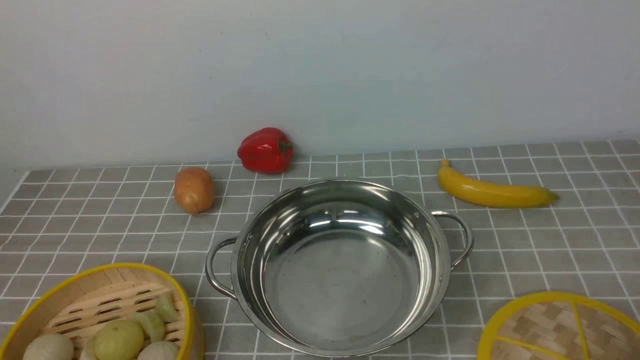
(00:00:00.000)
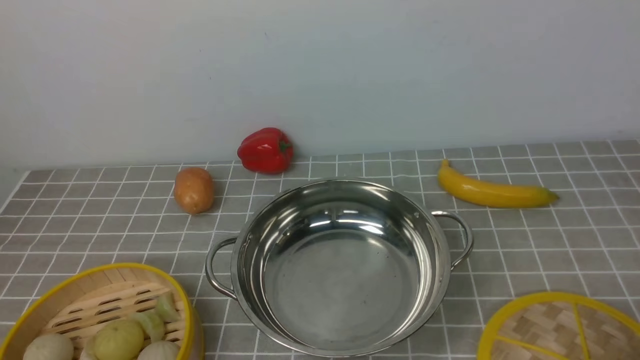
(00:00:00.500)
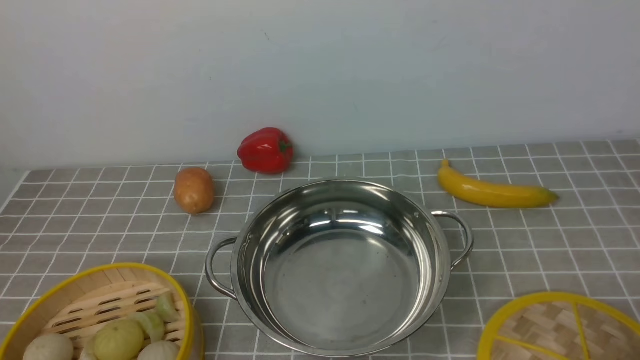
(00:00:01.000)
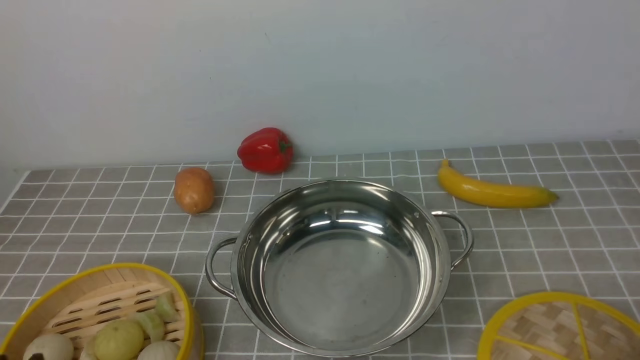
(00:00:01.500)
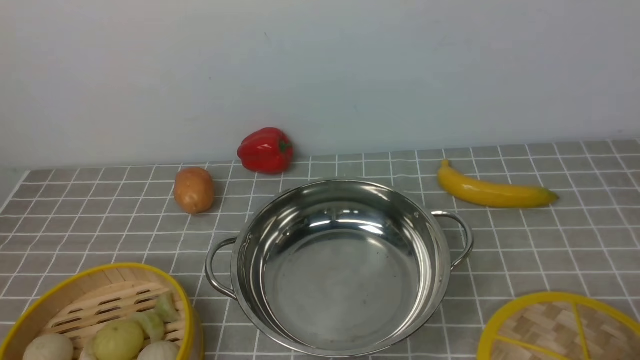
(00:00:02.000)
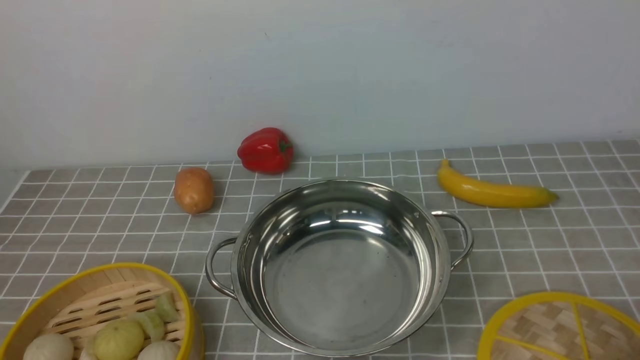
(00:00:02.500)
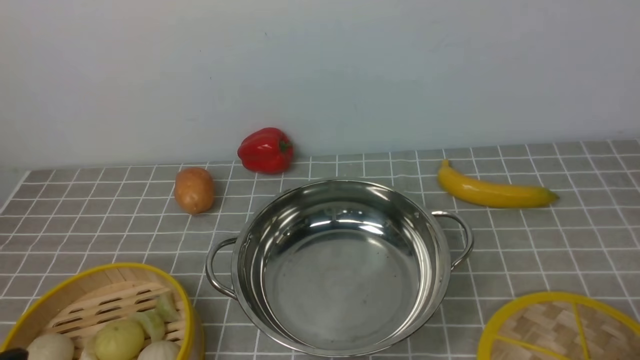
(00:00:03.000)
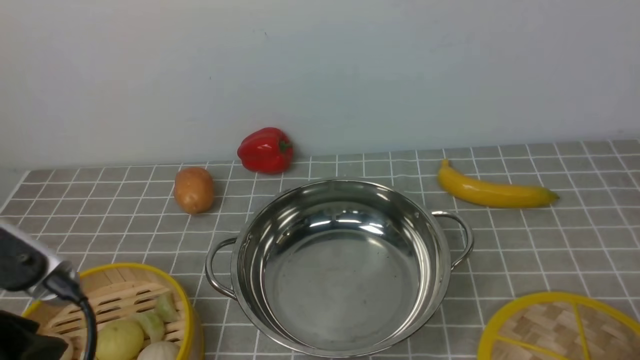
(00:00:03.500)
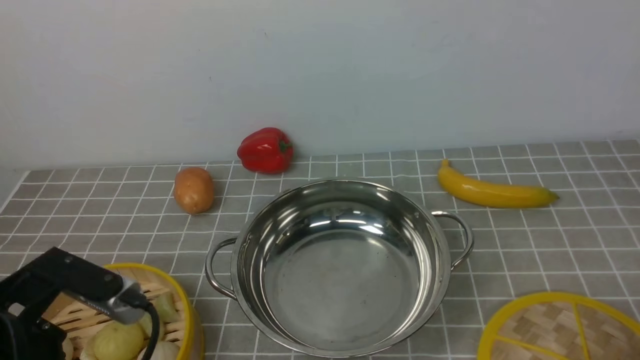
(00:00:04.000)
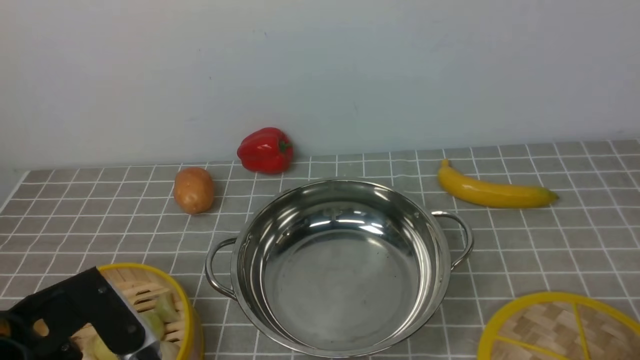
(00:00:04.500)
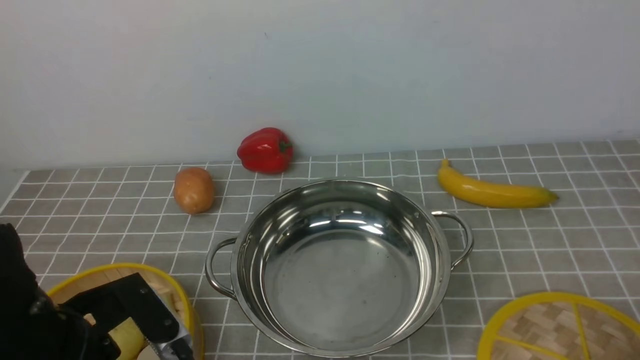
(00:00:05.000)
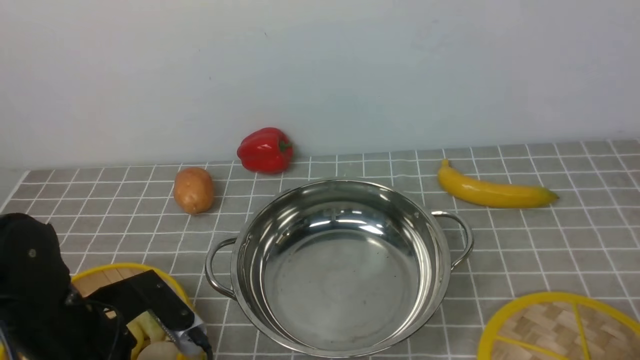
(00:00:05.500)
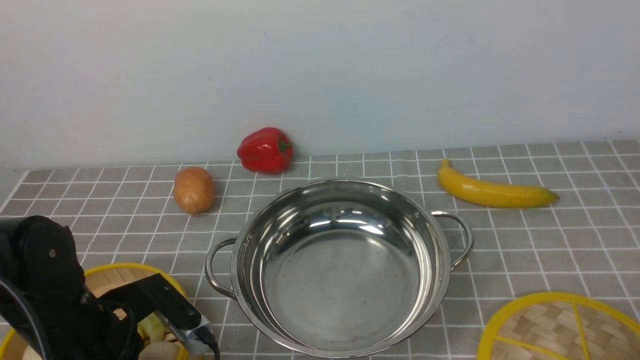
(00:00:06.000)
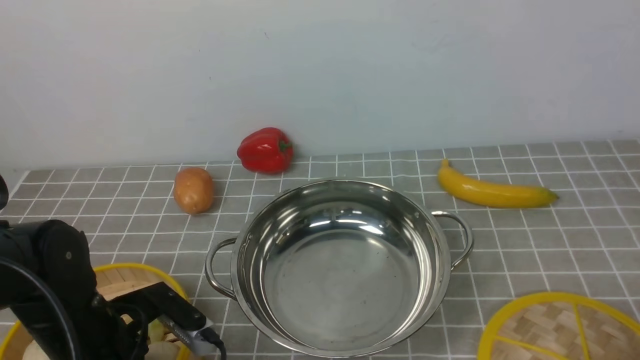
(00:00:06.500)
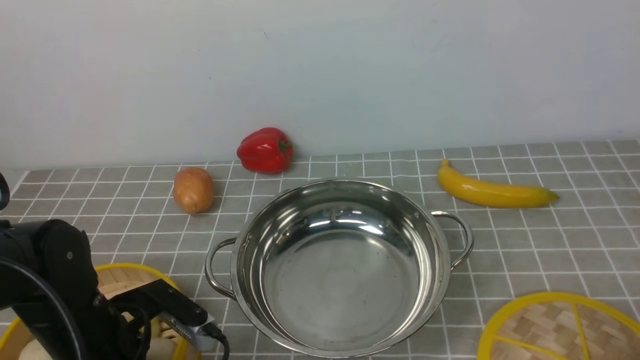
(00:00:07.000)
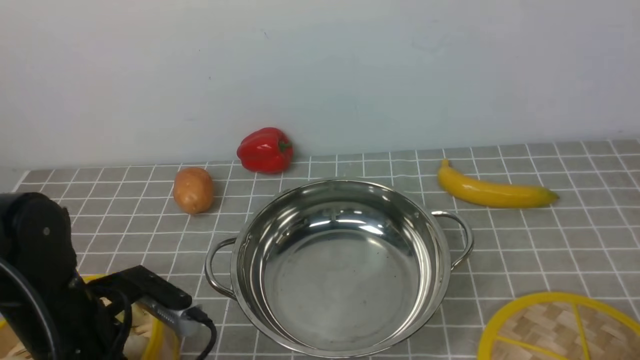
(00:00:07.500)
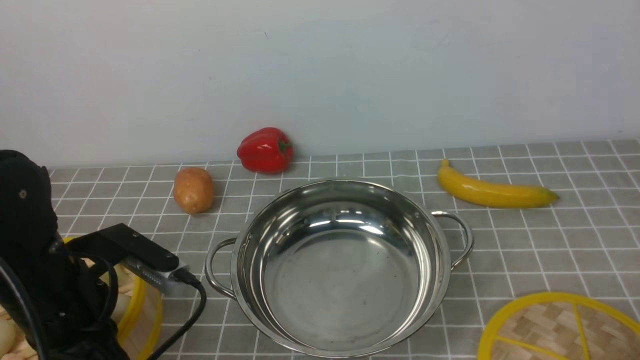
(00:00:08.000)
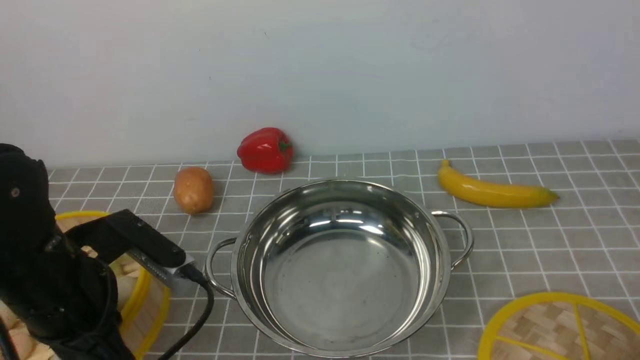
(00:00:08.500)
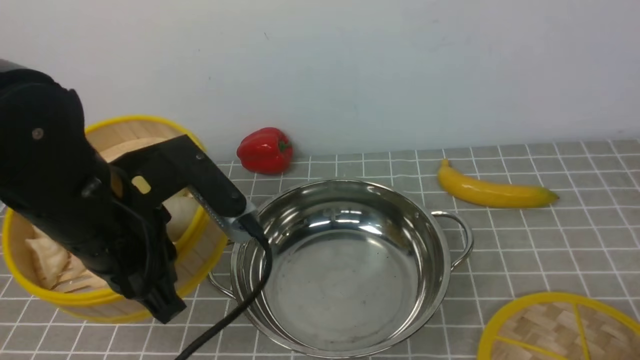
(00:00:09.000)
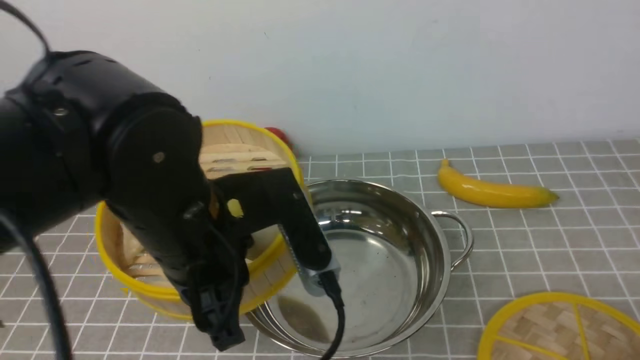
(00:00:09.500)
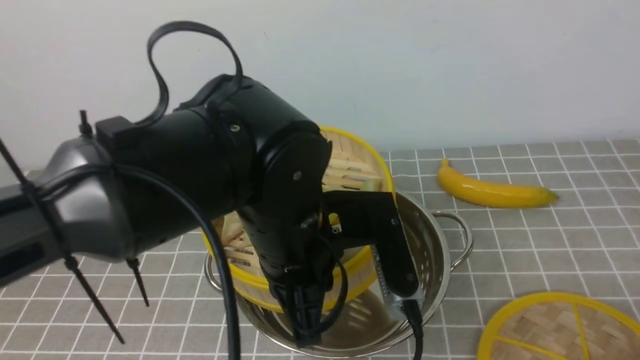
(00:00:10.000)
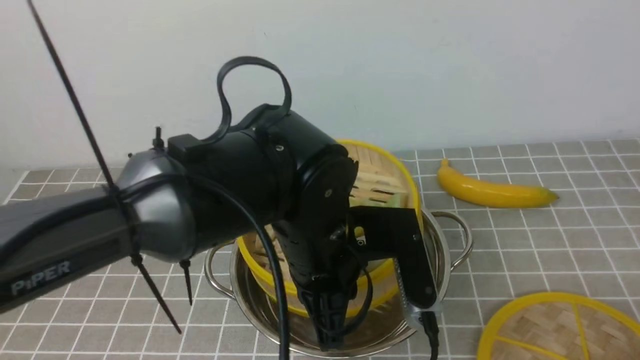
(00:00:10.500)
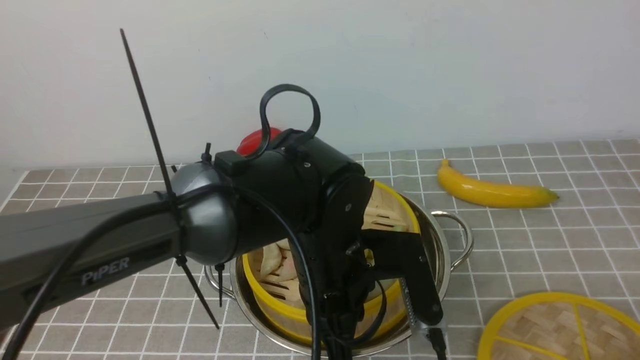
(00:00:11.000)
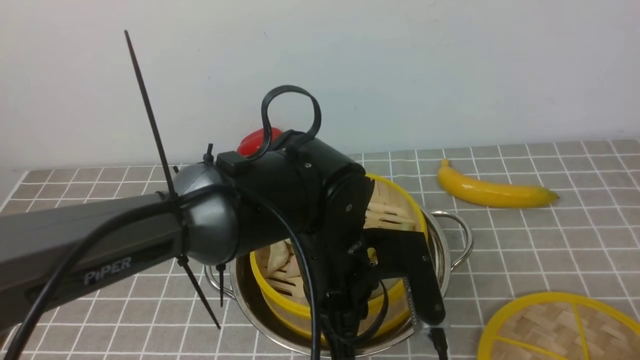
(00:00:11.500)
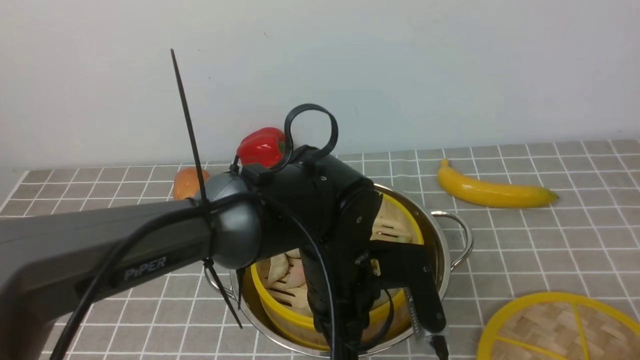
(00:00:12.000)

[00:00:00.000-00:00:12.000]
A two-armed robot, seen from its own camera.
Task of the whole recording: place the steamer in the pot on the grey tablecloth, and put the lid on the steamer.
Step, 00:00:00.000 to 00:00:07.500: use the left arm to lift the steamer closest to it.
00:00:02.000 to 00:00:04.000: The left gripper is displaced forward by roughly 10 cm.
00:00:04.000 to 00:00:06.000: The left gripper is displaced downward and forward by approximately 10 cm.
00:00:06.000 to 00:00:08.000: The left gripper is displaced upward by approximately 5 cm, and closes its fingers.
00:00:08.000 to 00:00:10.000: The left gripper is displaced to the right by about 20 cm.
00:00:10.000 to 00:00:12.000: The left gripper goes roughly 10 cm downward.

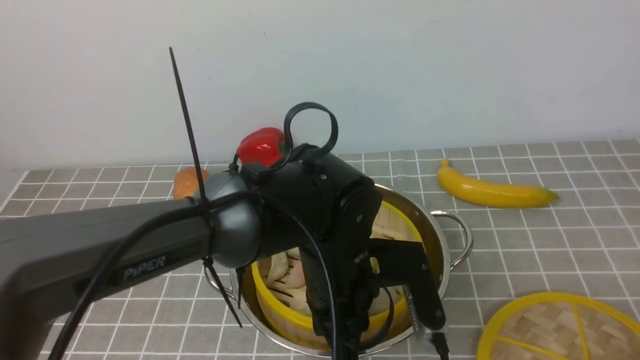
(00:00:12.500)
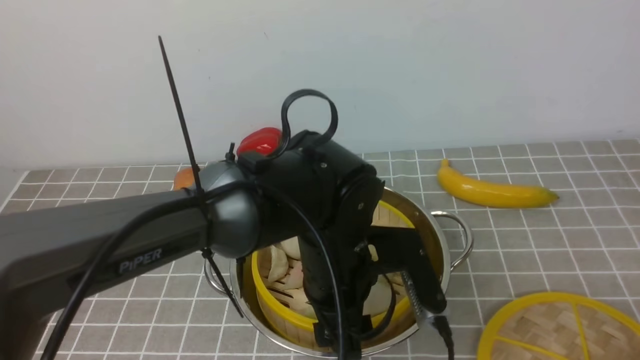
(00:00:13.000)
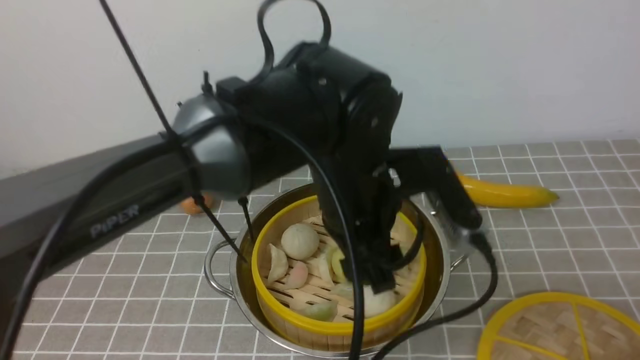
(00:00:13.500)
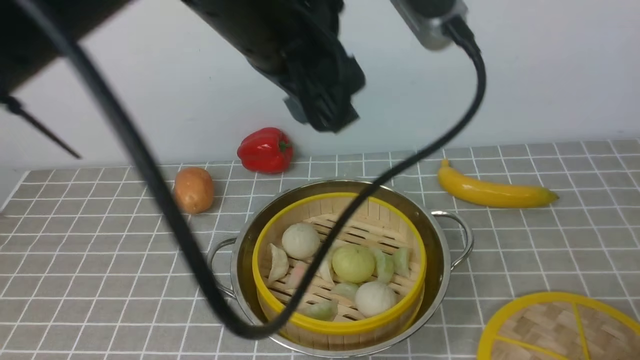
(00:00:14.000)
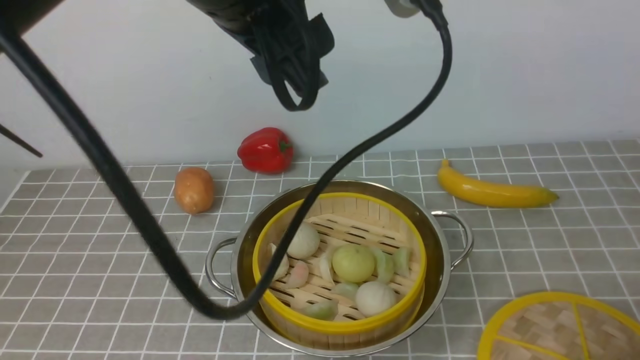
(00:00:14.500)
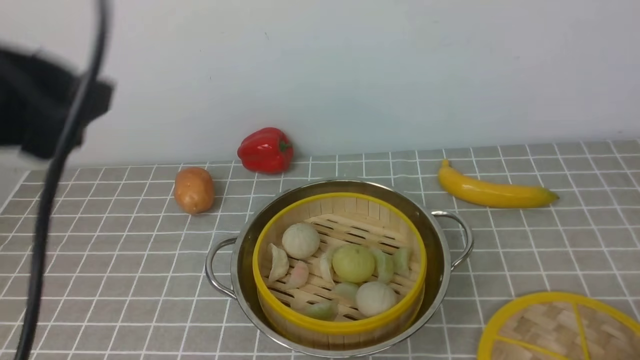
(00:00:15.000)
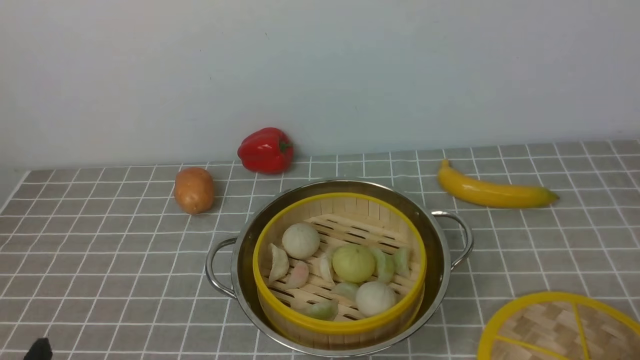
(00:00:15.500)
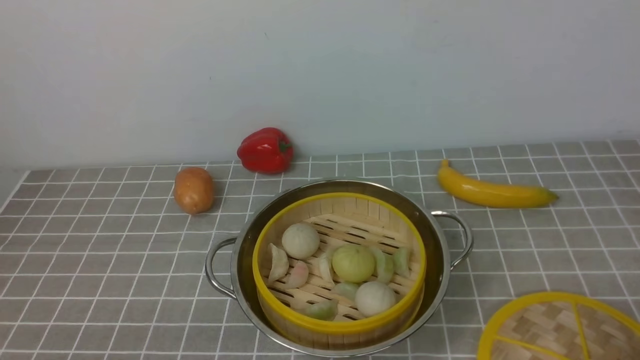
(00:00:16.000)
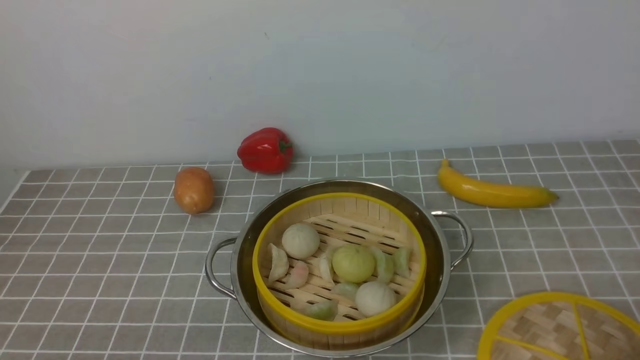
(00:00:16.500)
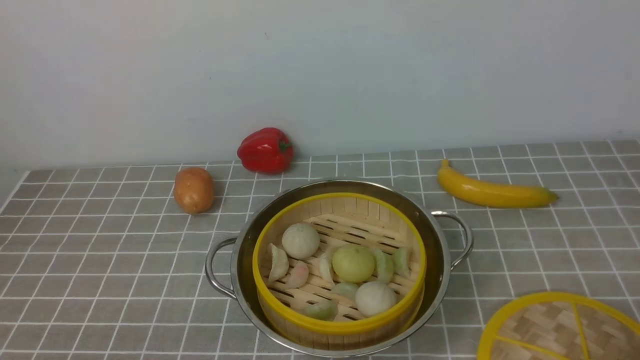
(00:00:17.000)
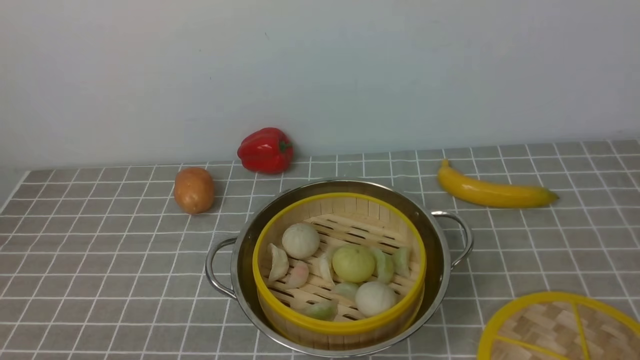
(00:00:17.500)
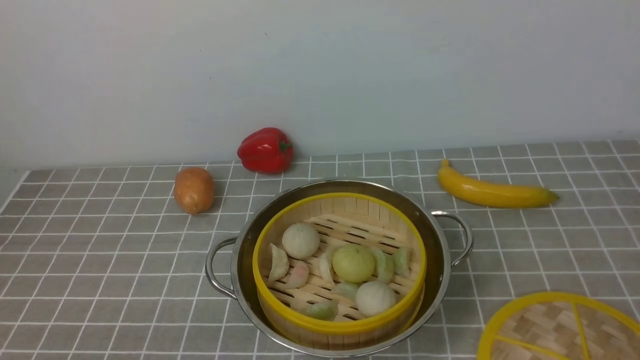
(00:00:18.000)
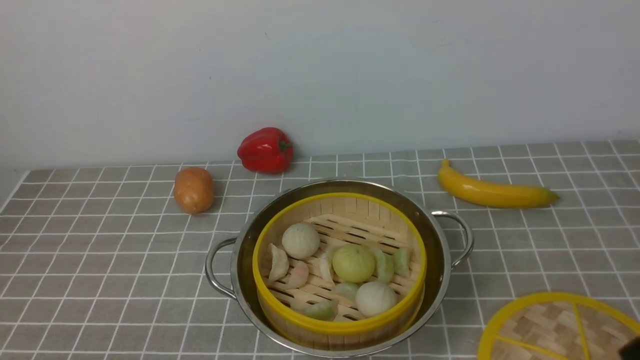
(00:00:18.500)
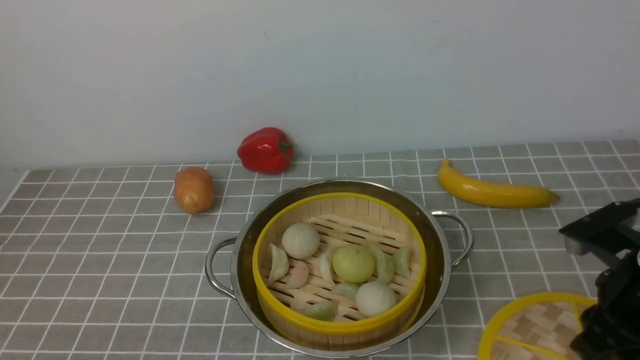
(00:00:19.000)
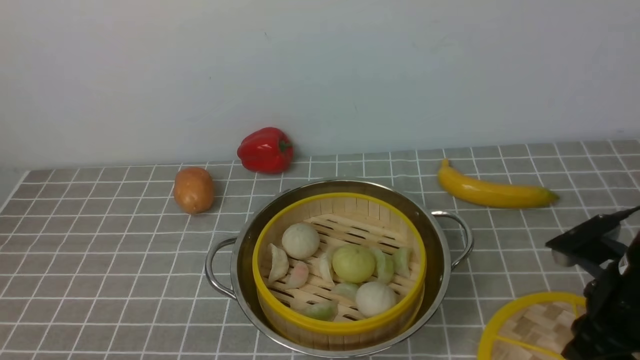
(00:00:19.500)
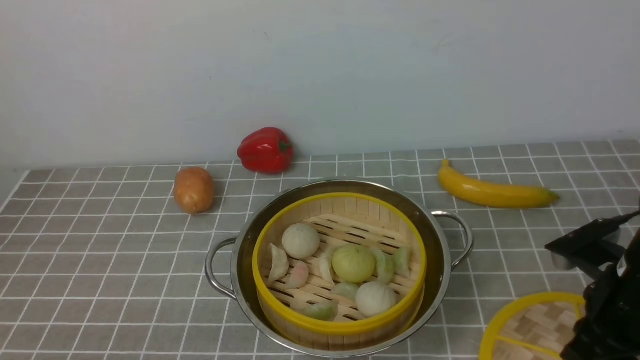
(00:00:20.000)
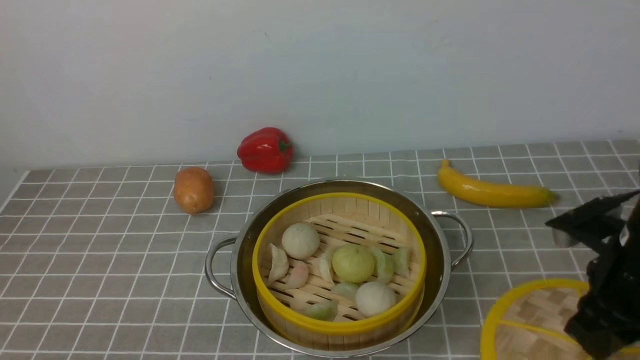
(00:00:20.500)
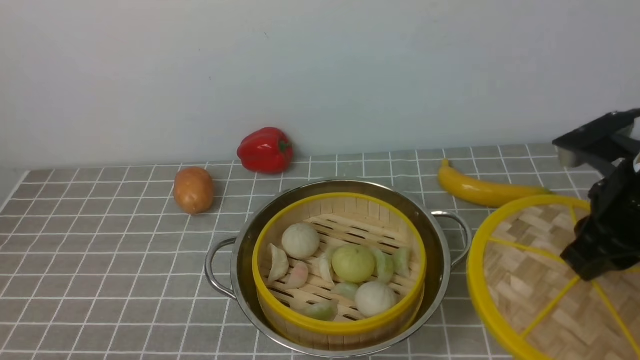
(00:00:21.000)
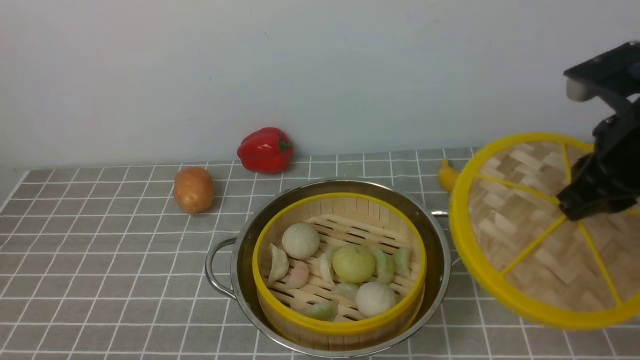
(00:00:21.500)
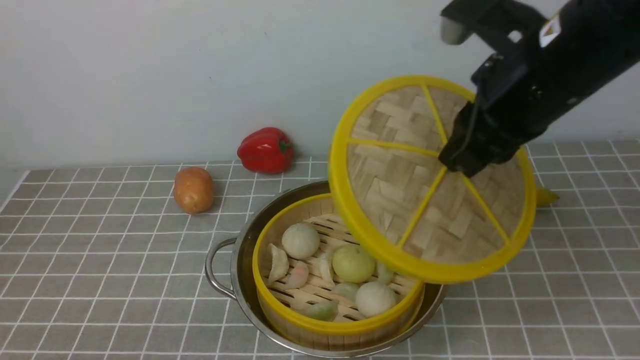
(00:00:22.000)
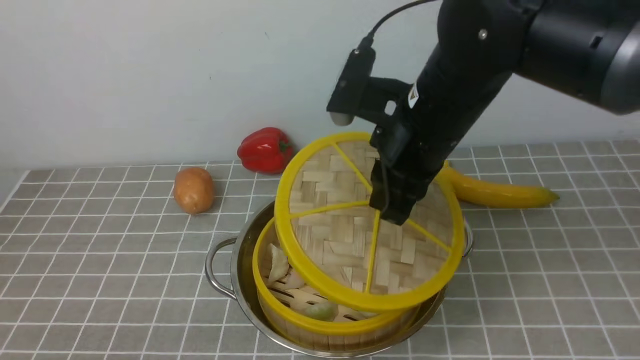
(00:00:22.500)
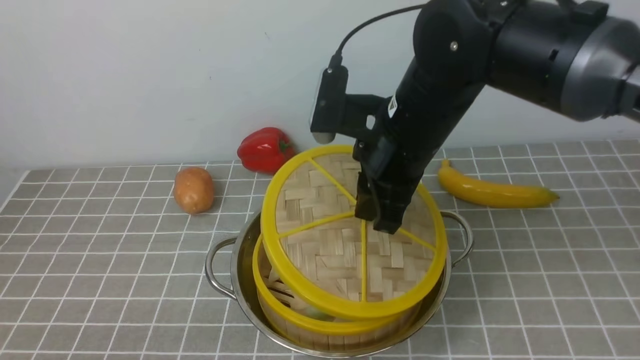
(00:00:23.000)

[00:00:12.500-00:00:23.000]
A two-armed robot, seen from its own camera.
Task of the whole recording: place the steamer in the pot on the grey tablecloth, and put the lid on the steamer.
Step, 00:00:13.500 to 00:00:20.000: use the right arm to lift the lid of the steamer.
00:00:12.500 to 00:00:14.500: The left gripper travels upward by some 25 cm, and opens up.
00:00:14.500 to 00:00:16.500: The left gripper moves downward, backward and to the left, some 40 cm.
00:00:16.500 to 00:00:19.000: The right gripper travels forward by about 15 cm.
00:00:19.000 to 00:00:21.000: The right gripper shifts roughly 5 cm upward, and closes its fingers.
00:00:21.000 to 00:00:23.000: The right gripper moves to the left, some 20 cm.
